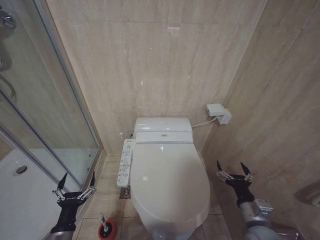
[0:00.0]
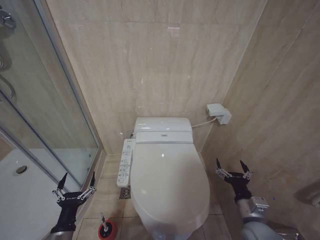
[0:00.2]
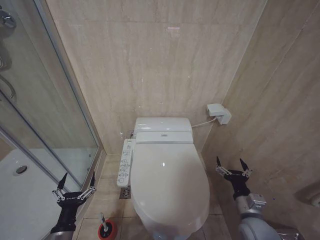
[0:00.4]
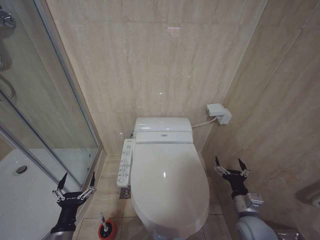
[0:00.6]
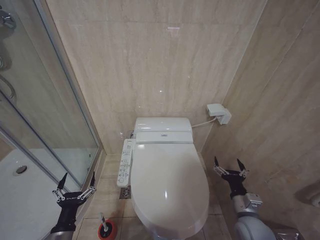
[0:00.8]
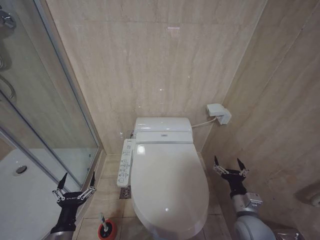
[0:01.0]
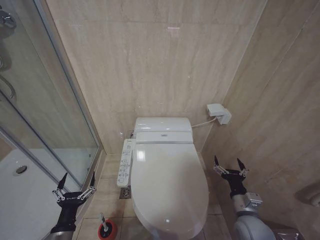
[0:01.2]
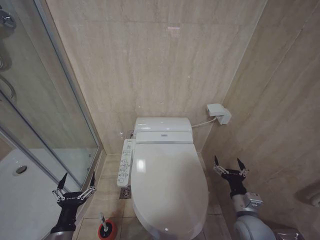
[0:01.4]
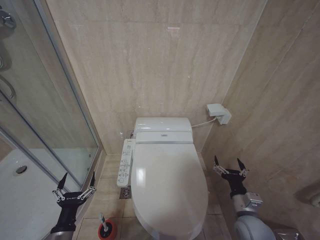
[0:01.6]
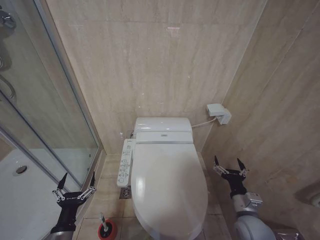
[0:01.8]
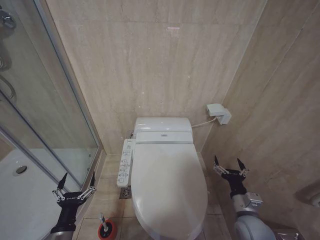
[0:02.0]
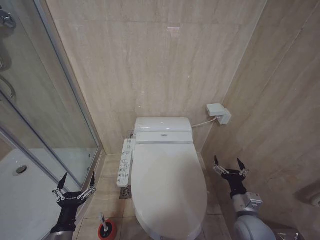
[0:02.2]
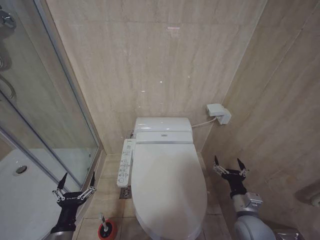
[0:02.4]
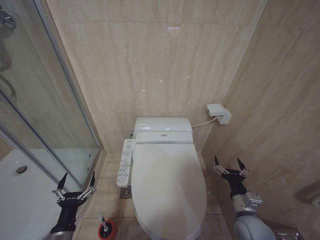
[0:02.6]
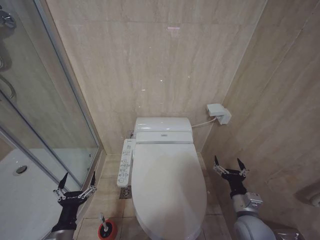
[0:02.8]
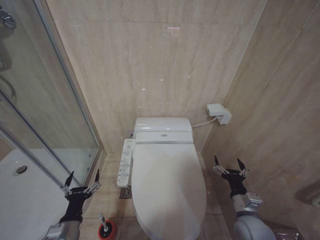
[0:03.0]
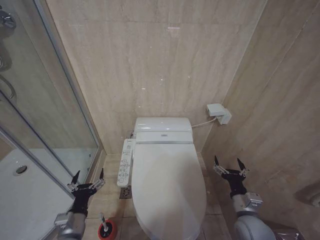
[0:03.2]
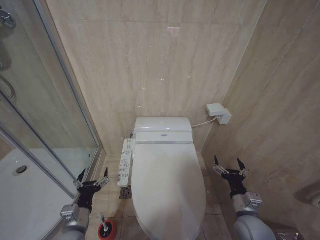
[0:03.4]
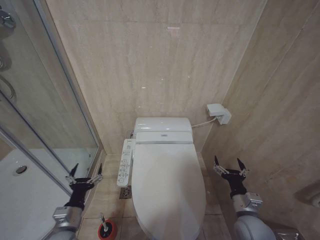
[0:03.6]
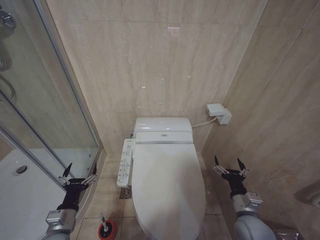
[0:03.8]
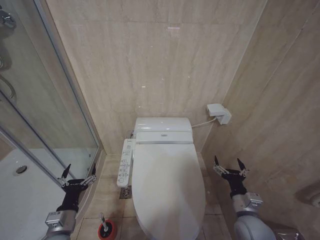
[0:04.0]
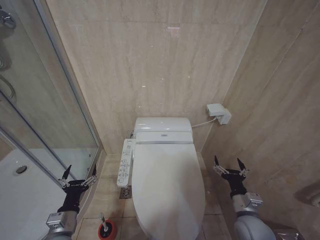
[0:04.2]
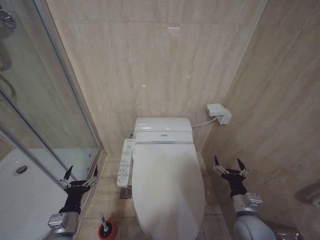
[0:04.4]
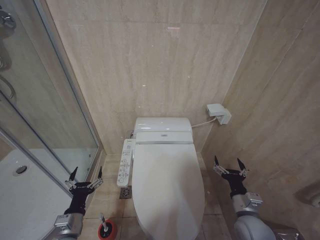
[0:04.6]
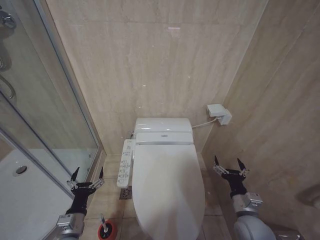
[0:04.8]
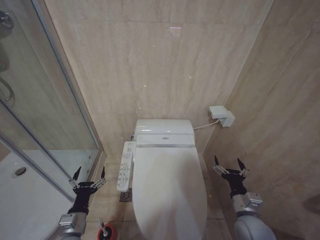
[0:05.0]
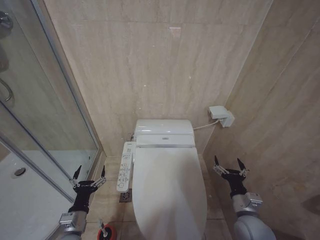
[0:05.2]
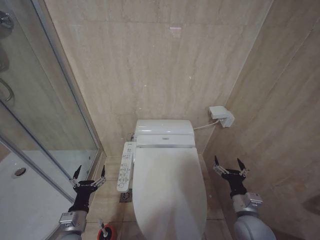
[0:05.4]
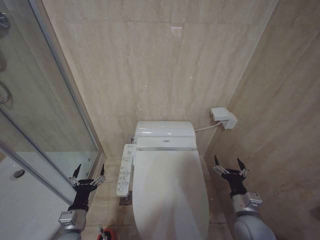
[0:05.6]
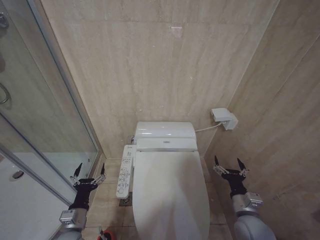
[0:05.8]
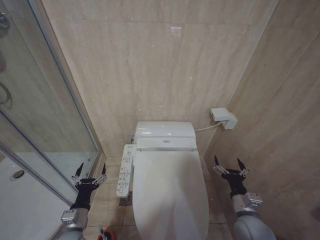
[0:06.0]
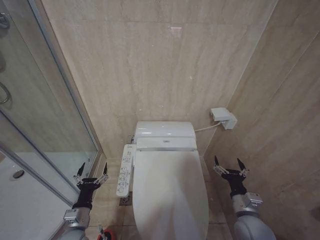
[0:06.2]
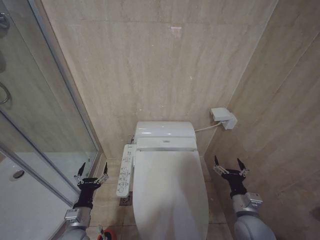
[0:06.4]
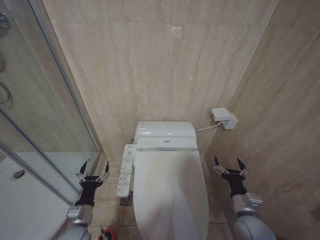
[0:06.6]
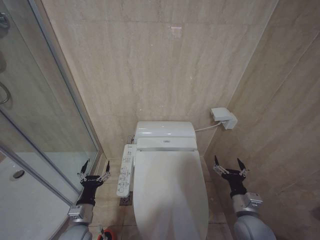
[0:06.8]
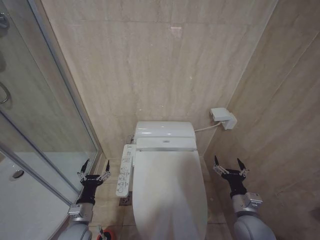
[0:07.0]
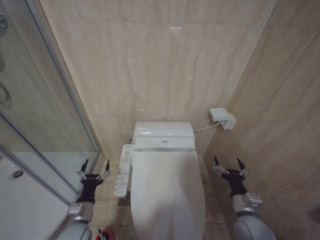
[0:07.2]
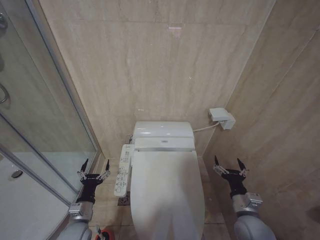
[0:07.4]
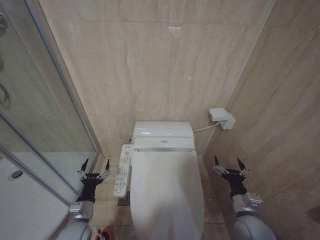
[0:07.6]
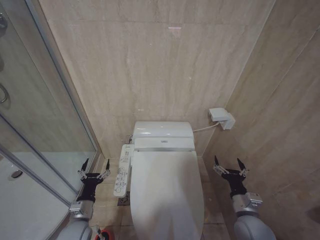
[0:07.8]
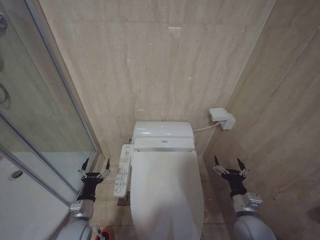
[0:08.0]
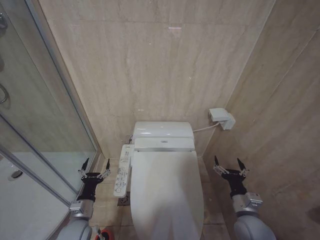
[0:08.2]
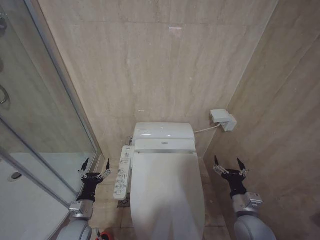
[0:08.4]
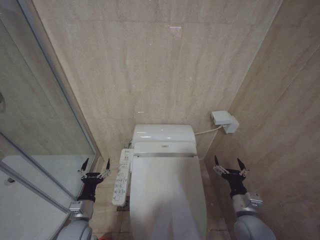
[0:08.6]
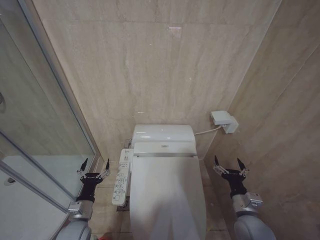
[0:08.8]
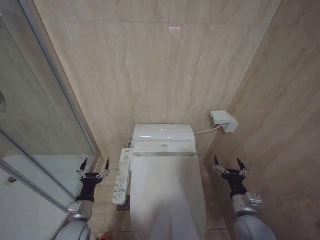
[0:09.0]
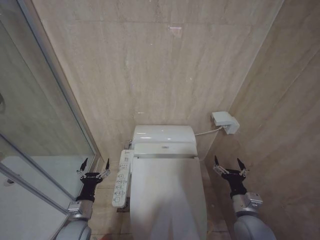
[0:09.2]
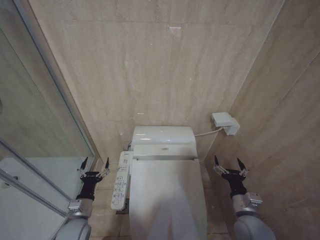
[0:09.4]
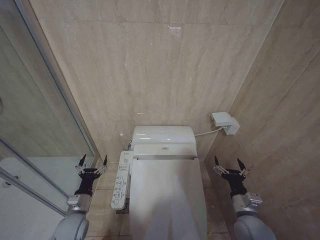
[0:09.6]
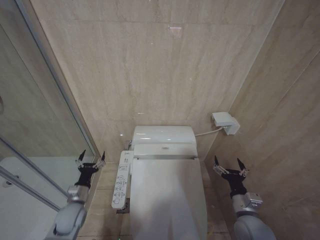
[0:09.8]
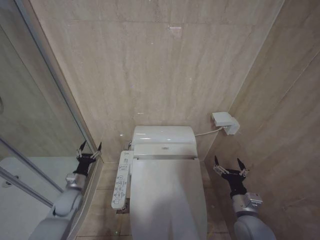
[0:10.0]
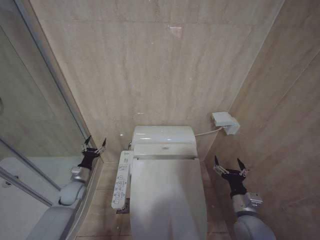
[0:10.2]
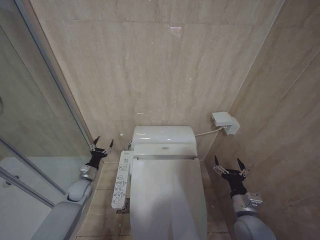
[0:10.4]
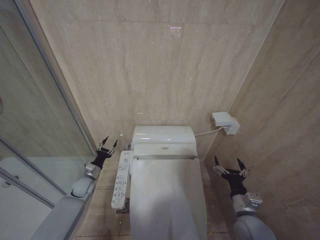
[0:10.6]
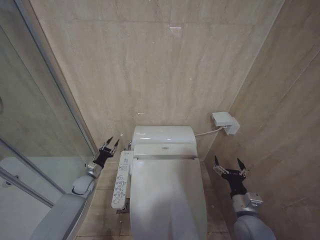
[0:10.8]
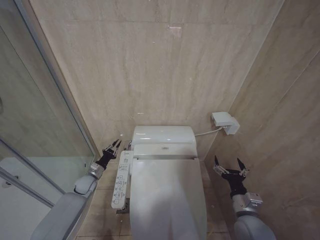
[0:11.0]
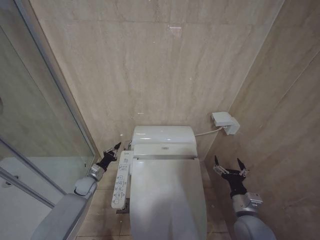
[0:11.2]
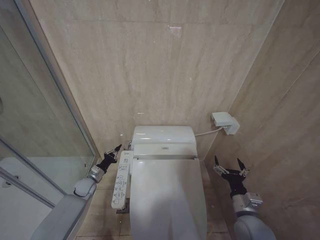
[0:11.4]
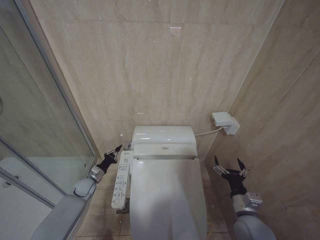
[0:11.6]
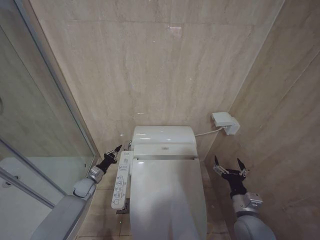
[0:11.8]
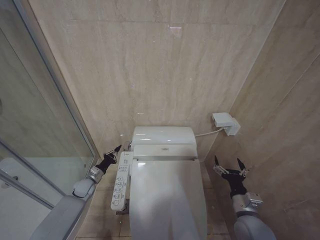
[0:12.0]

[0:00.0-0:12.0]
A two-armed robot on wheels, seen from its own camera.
Task of the whole recording: Open the toilet lid, clean the toilet bowl with a toilet brush, close the toilet lid, and flush.
0:00.0 to 0:01.6: The right gripper shifts by some 5 cm.
0:01.6 to 0:03.0: The grippers stay close to where they were, moving slightly.
0:03.0 to 0:06.0: The grippers move only a little.
0:06.0 to 0:07.6: The grippers move only a little.
0:07.6 to 0:09.0: The two grippers keep their place.
0:09.0 to 0:10.4: The left gripper heads forward, covering roughly 15 cm.
0:10.4 to 0:12.0: The left gripper closes its fingers.

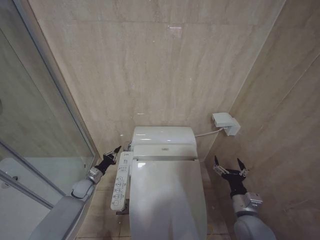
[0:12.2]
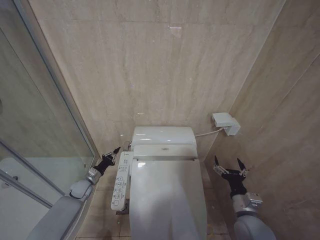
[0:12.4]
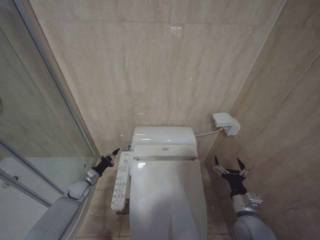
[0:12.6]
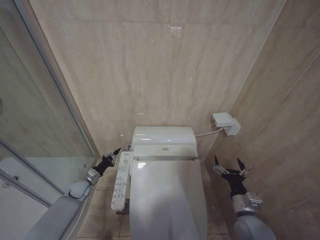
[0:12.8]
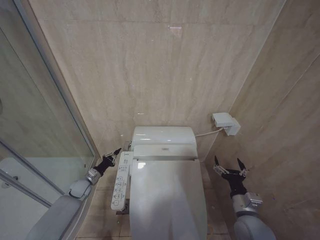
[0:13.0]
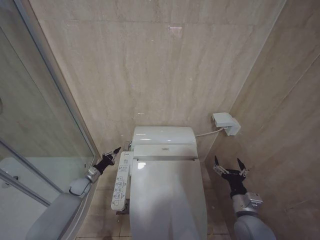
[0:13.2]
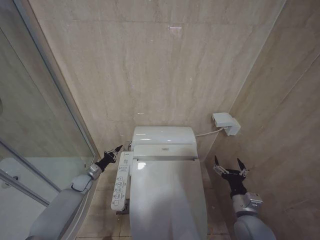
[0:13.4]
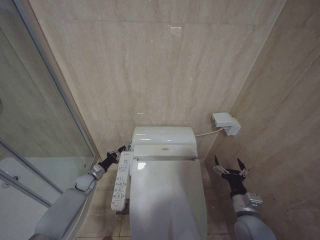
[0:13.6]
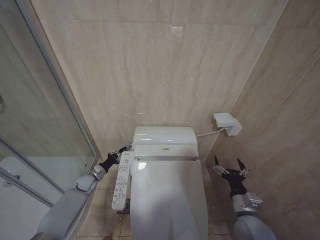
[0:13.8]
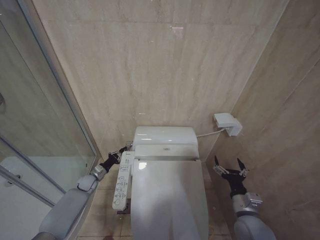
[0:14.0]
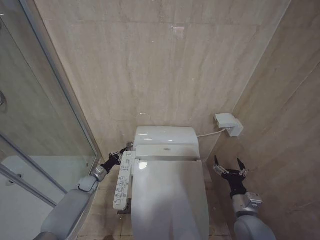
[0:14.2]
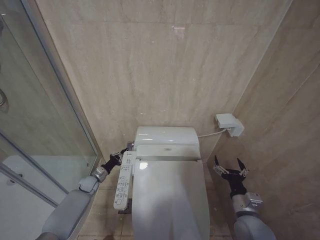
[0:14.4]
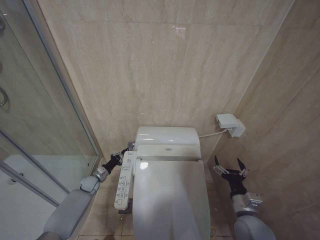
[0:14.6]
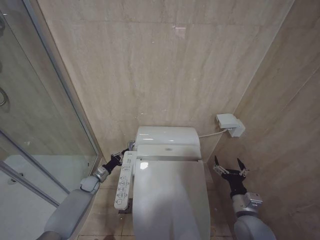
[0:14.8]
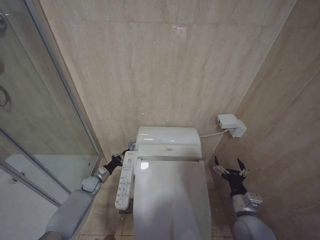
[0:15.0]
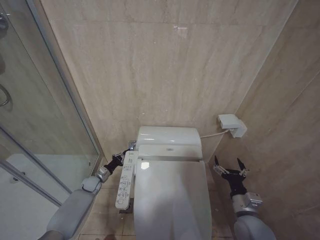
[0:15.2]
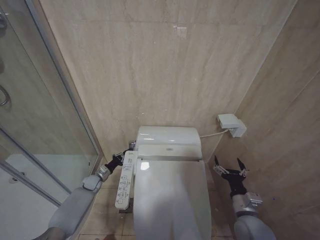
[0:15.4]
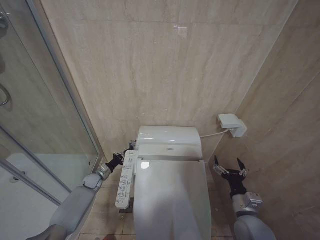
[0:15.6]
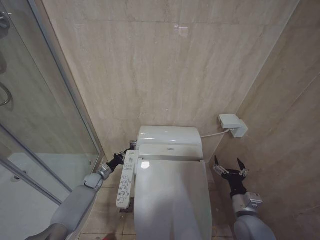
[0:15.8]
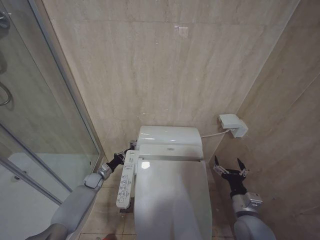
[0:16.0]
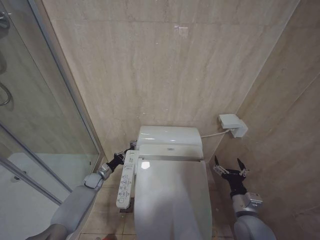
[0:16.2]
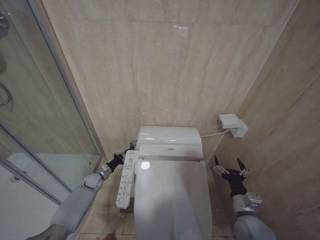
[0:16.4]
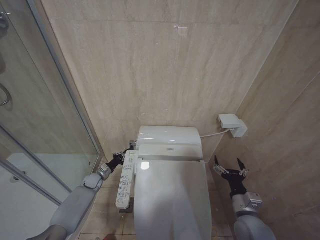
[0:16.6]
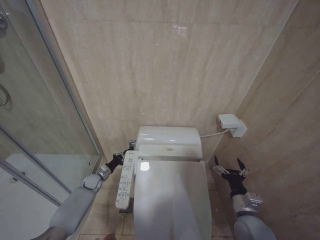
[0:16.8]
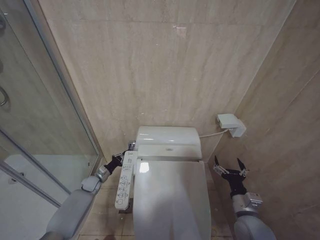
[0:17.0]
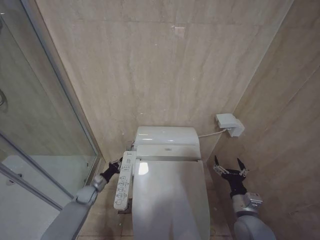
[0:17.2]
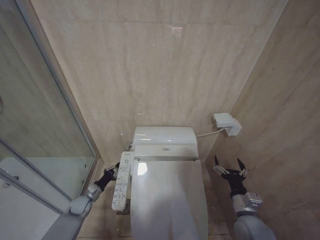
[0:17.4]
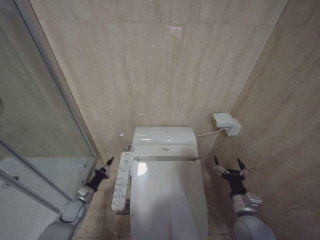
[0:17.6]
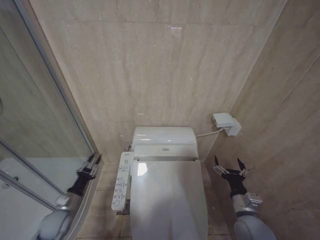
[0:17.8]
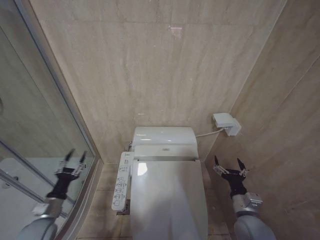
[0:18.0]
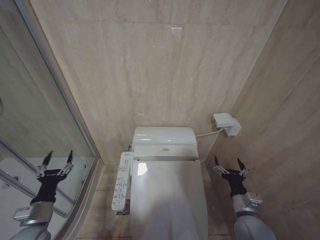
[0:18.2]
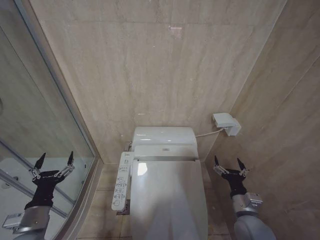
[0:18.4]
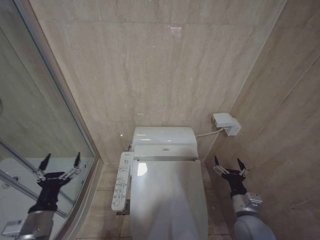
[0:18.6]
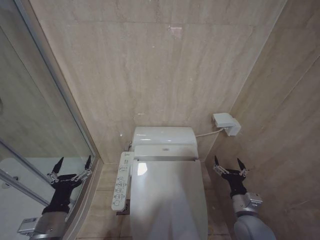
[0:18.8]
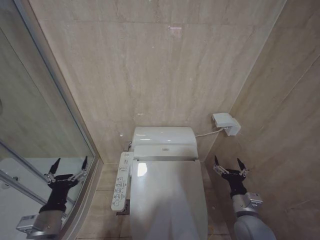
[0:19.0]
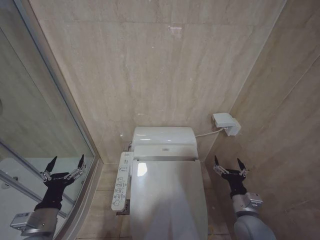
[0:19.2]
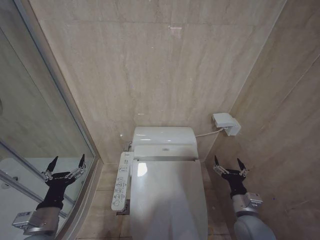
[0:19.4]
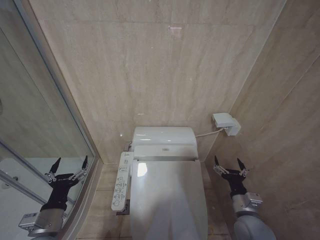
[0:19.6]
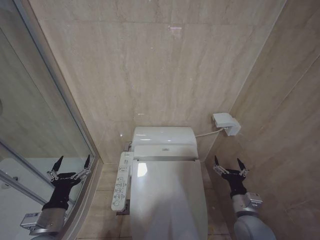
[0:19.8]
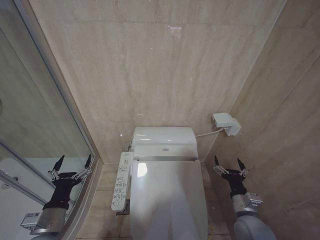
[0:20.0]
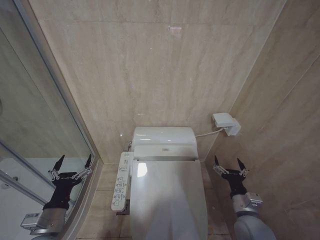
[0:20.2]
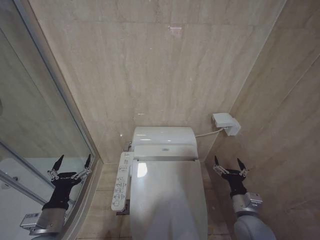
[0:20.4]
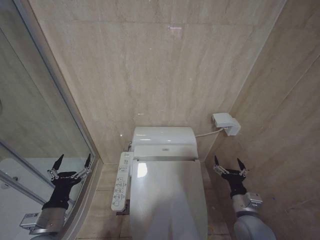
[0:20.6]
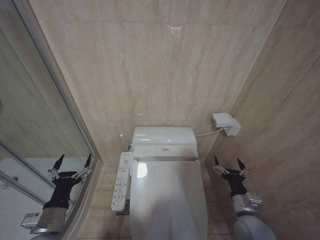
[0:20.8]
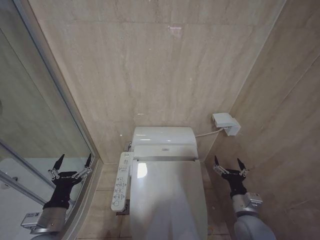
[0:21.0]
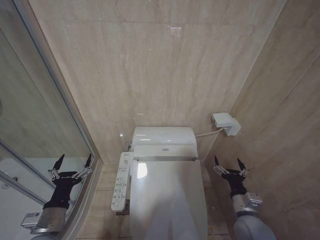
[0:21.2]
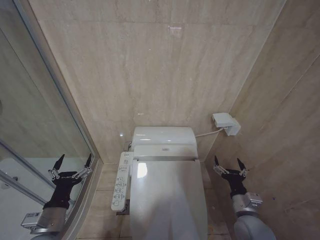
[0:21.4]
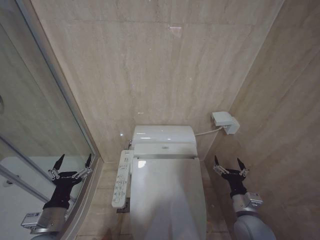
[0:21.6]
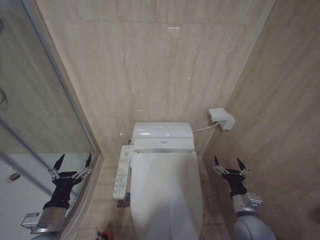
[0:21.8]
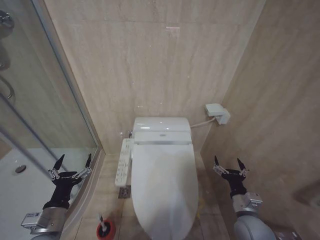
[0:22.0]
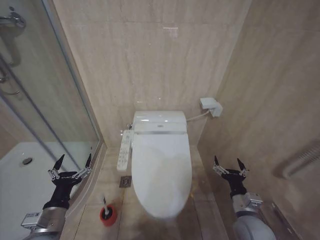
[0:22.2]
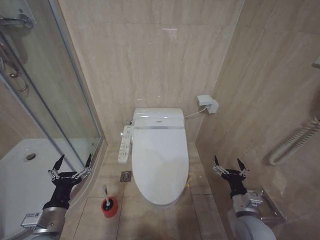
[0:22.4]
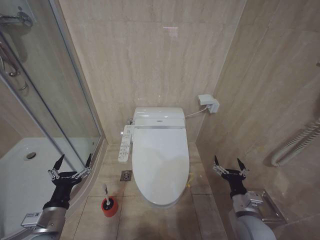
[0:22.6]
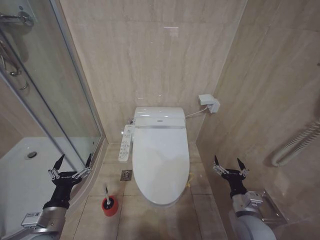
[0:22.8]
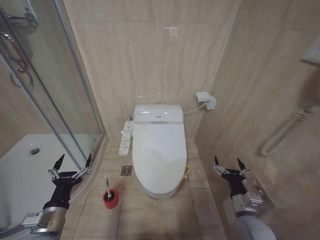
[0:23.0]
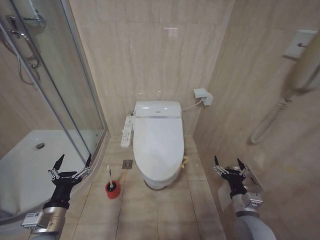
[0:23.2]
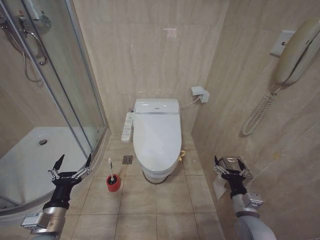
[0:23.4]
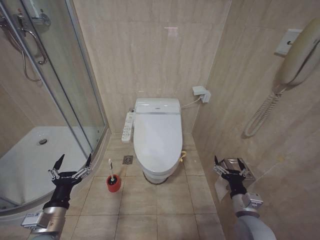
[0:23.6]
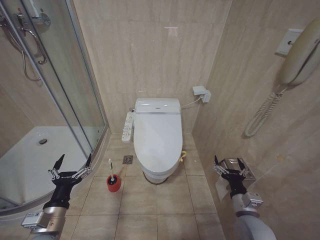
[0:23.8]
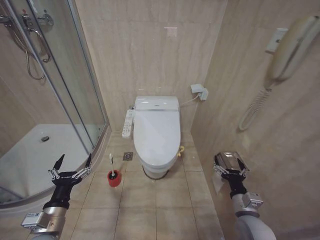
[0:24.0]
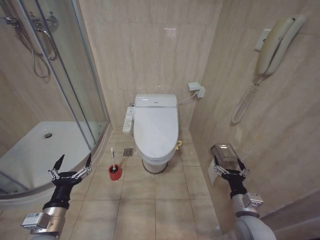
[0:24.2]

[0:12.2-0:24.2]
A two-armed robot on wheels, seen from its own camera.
Task of the whole recording: Open the toilet lid, clean the toilet bowl with a toilet brush, close the toilet lid, and flush.
0:12.2 to 0:15.2: The grippers stay close to where they were, moving slightly.
0:16.6 to 0:18.2: The left gripper travels backward and upward by about 30 cm, and opens its fingers.
0:18.2 to 0:19.8: The left gripper moves to the right, some 5 cm, and opens up.
0:19.8 to 0:21.2: Both grippers stay put.
